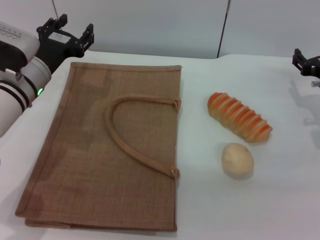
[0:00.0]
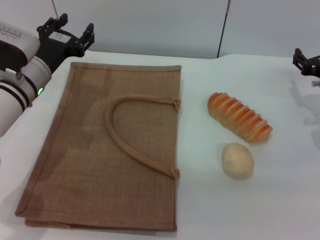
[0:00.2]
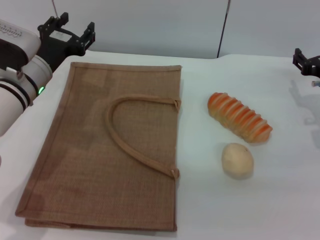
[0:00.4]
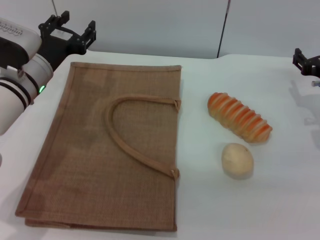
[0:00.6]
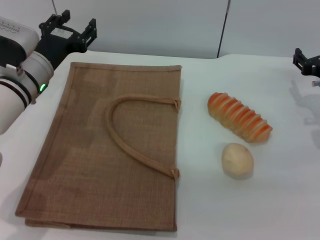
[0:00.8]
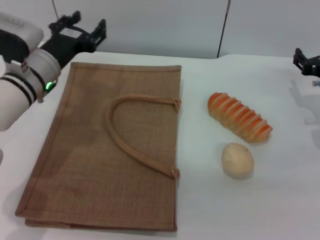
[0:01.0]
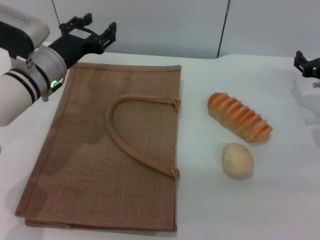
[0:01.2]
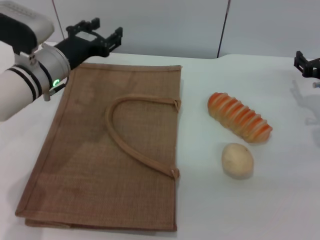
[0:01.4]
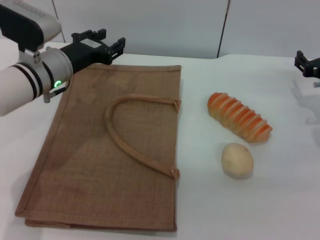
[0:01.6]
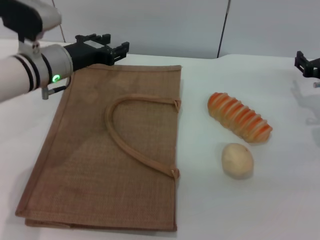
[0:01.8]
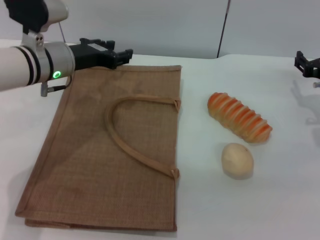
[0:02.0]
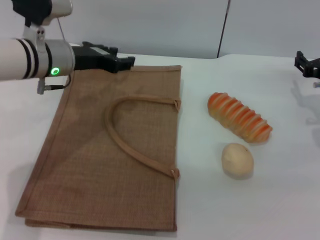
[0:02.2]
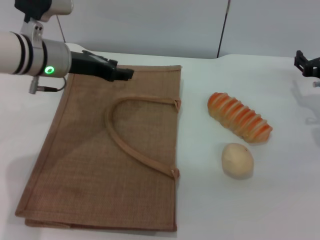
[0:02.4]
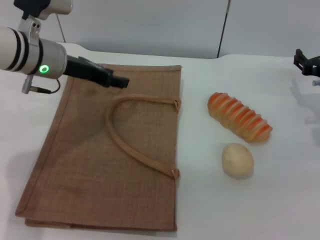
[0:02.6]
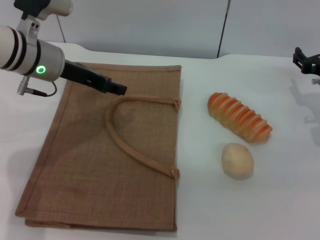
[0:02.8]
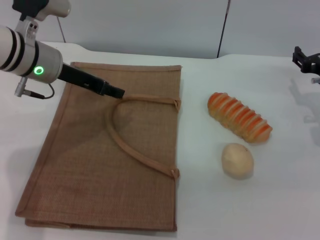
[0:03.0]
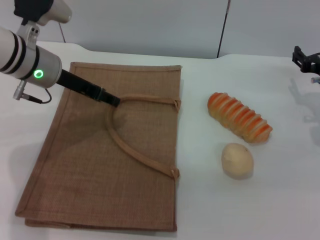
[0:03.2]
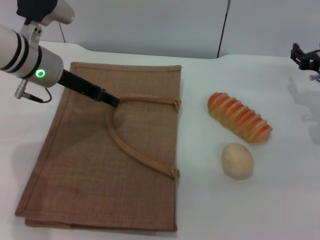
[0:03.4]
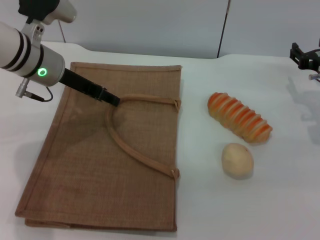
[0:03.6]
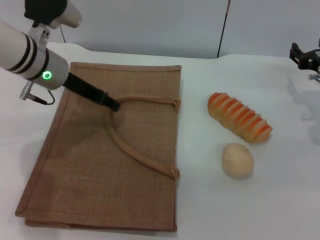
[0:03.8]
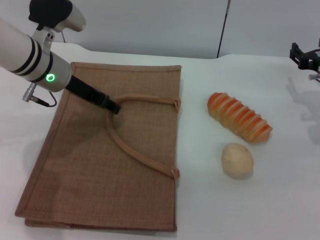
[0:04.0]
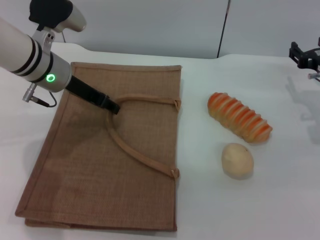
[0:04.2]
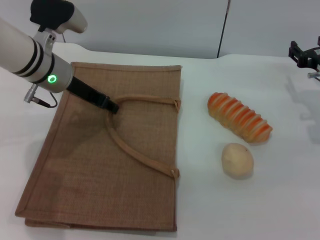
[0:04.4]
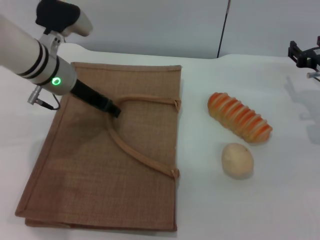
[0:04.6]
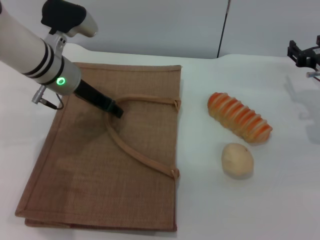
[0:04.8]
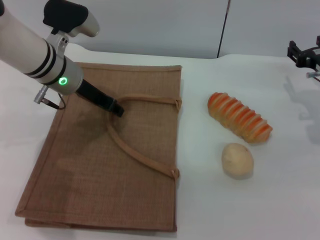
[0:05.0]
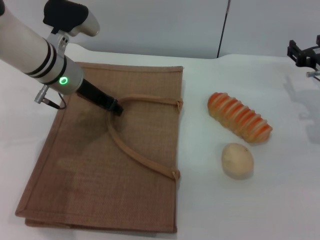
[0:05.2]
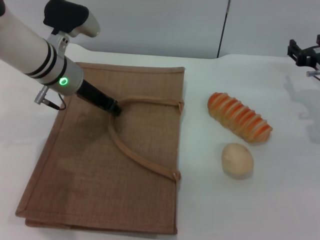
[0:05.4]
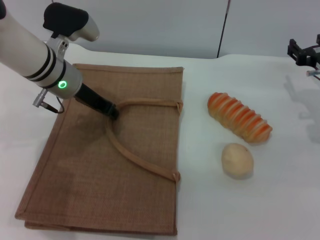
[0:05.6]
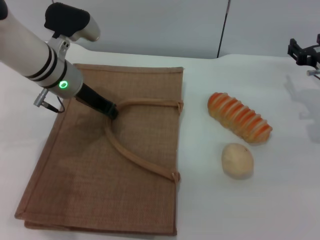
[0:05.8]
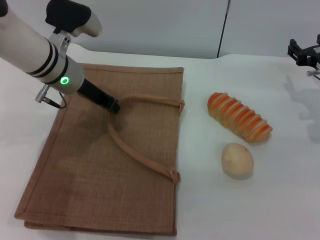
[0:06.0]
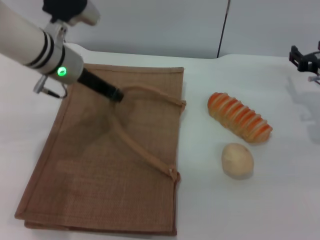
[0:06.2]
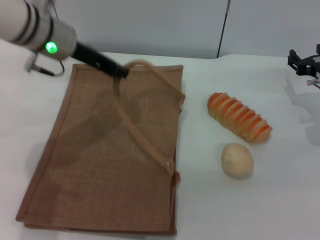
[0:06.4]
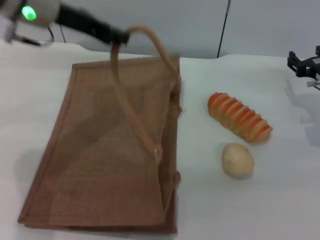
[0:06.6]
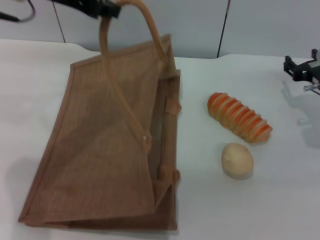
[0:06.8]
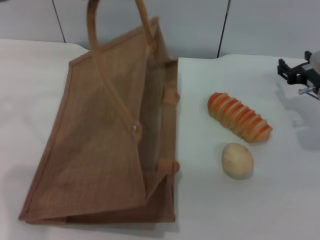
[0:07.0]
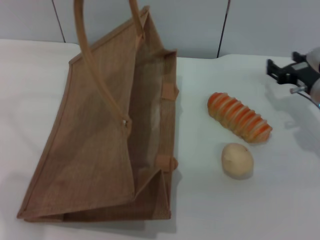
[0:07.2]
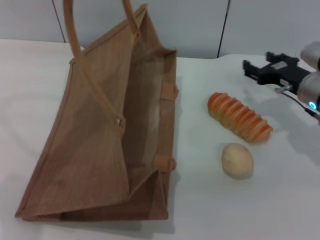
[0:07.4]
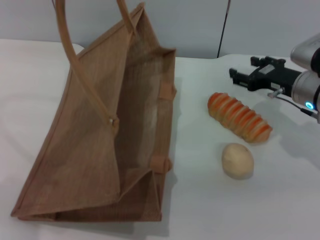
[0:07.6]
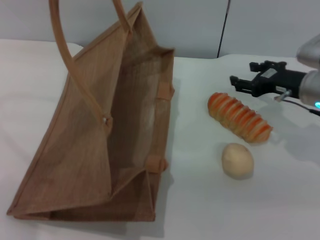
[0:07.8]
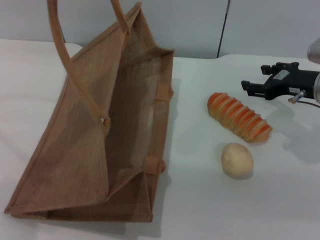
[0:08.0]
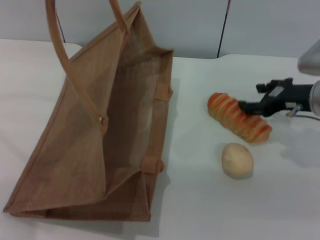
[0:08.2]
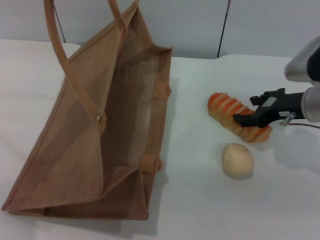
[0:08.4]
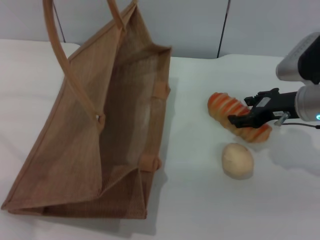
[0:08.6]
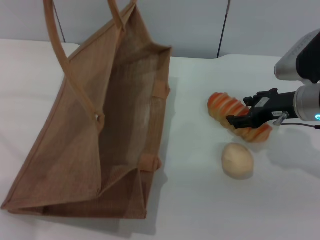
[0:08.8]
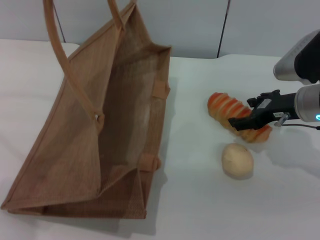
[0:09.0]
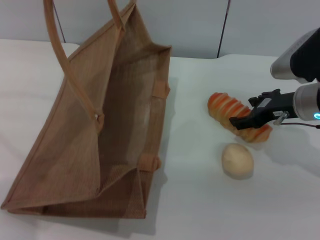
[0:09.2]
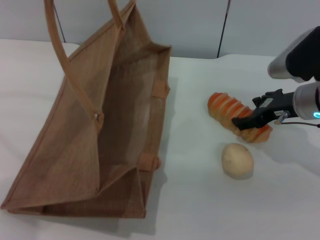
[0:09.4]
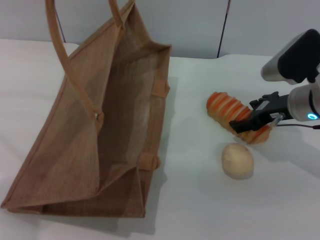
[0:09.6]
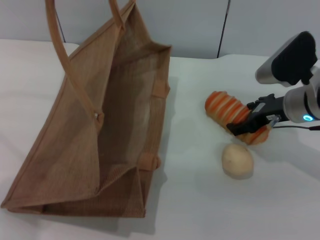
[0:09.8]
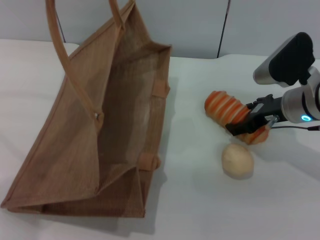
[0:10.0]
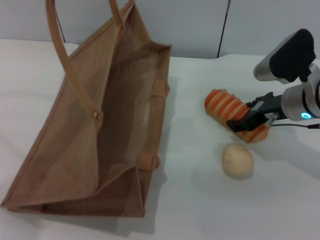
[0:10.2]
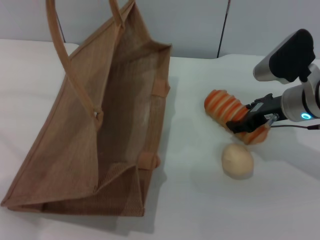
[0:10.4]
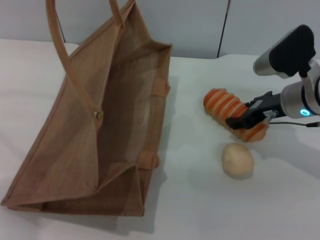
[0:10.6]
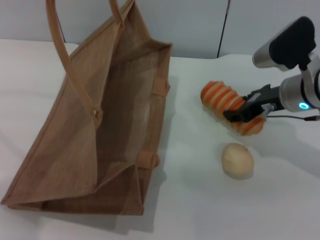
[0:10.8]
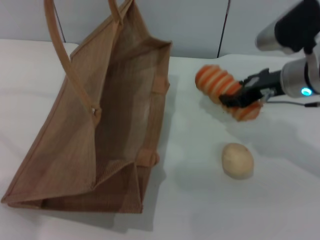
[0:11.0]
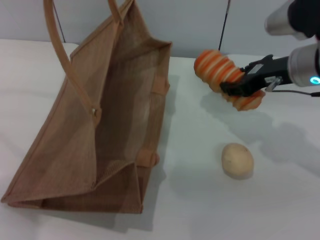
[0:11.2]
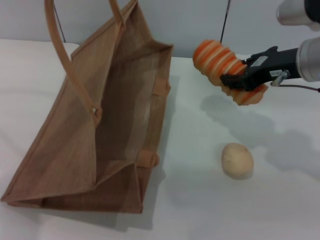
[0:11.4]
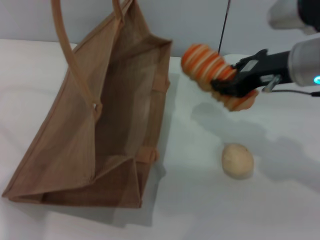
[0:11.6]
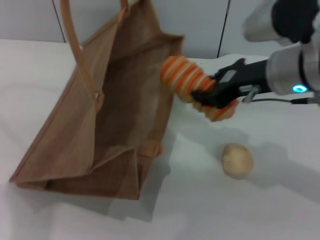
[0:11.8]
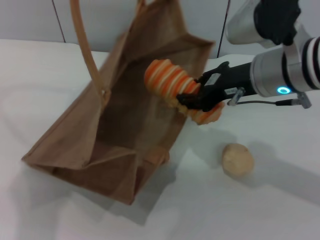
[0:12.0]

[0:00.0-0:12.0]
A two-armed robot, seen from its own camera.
Task of the whole recording: pick up the bread and egg yolk pastry from the table and place it in the brown handbag.
Step, 0:00.0 to 0:06.8: Lift the woven bag with the left gripper to open it.
Step, 0:07.0 to 0:11.2: Pick up the bread with the right gripper.
0:00.0 to 0:01.6: The grippers make only small movements.
0:01.6 to 0:03.0: The left gripper travels upward by approximately 5 cm.
0:03.0 to 0:04.4: The grippers move only a little.
0:04.4 to 0:06.0: The left gripper closes its fingers.
0:06.0 to 0:07.6: The left gripper travels upward by approximately 25 cm.
0:09.0 to 0:10.4: The grippers make only small movements.
0:10.4 to 0:12.0: The right gripper shifts some 10 cm upward and to the left, and closes up.

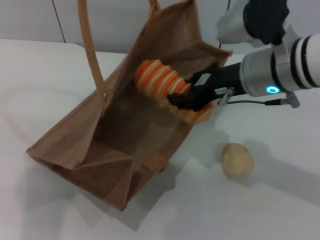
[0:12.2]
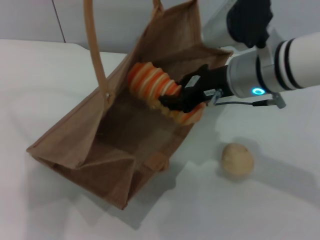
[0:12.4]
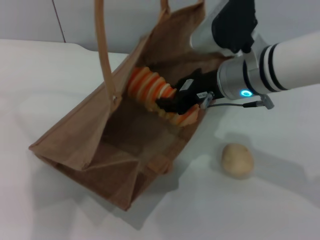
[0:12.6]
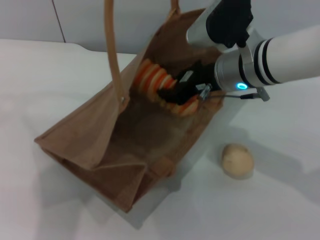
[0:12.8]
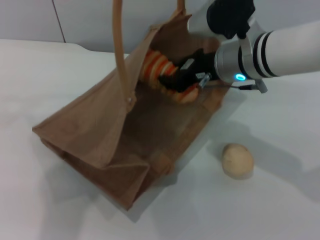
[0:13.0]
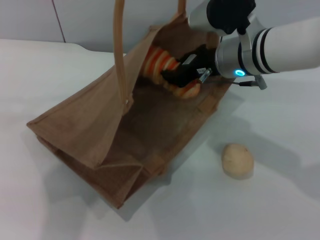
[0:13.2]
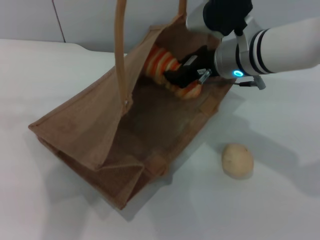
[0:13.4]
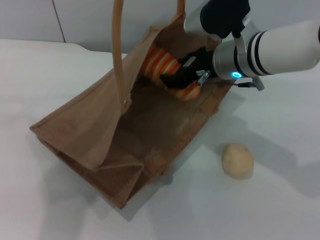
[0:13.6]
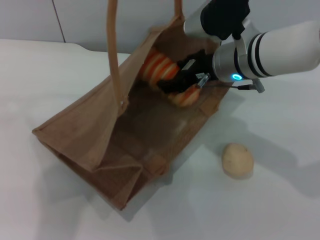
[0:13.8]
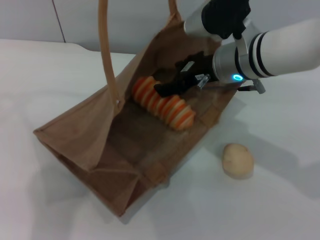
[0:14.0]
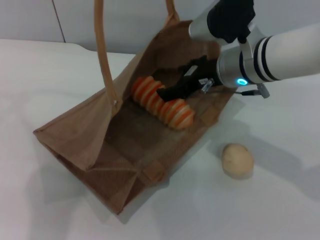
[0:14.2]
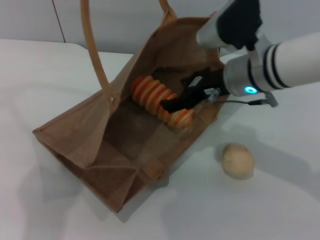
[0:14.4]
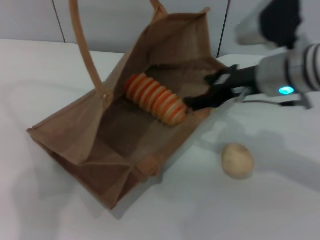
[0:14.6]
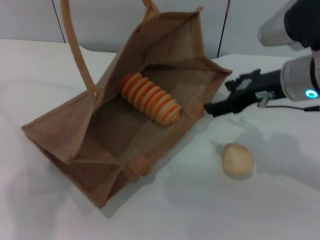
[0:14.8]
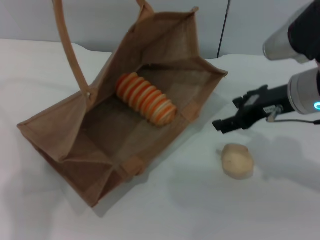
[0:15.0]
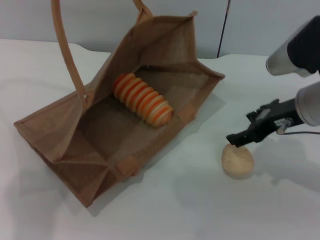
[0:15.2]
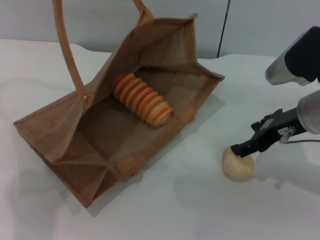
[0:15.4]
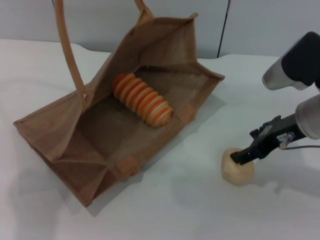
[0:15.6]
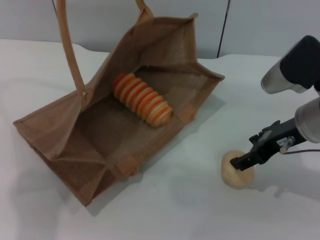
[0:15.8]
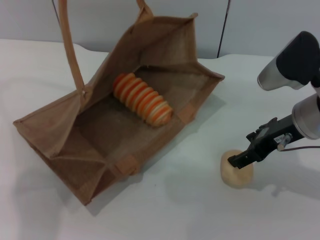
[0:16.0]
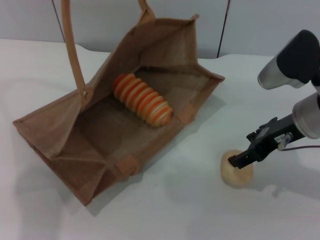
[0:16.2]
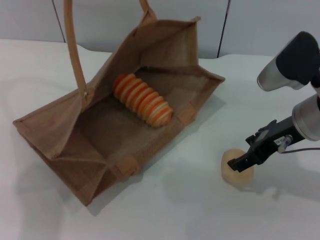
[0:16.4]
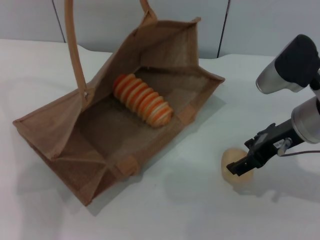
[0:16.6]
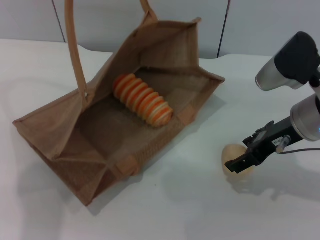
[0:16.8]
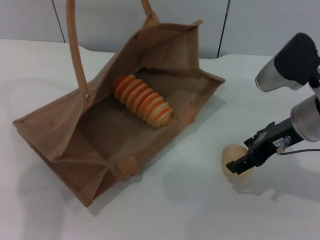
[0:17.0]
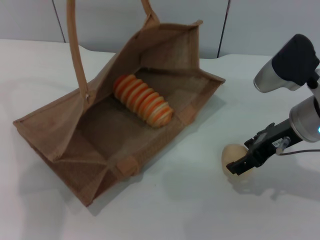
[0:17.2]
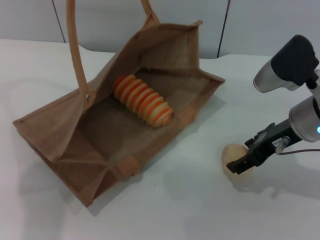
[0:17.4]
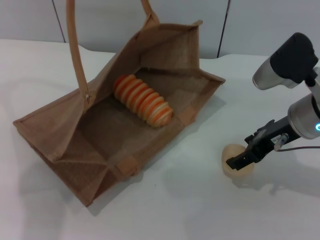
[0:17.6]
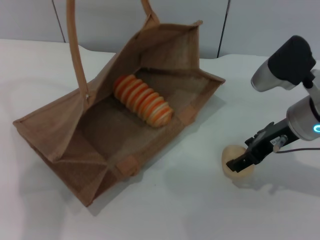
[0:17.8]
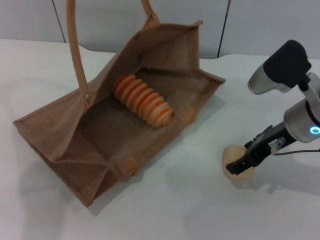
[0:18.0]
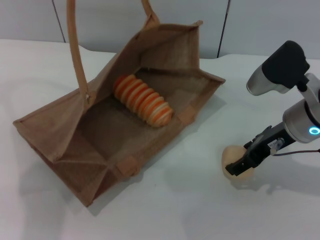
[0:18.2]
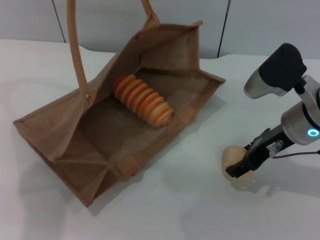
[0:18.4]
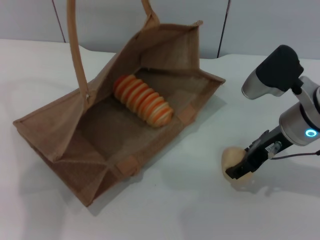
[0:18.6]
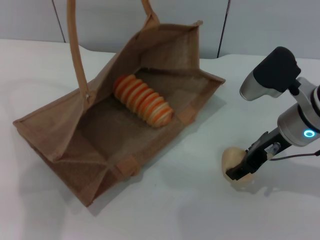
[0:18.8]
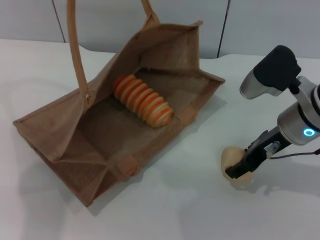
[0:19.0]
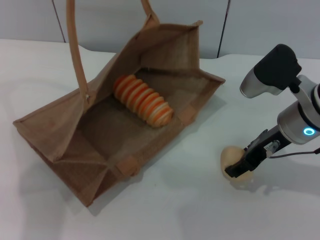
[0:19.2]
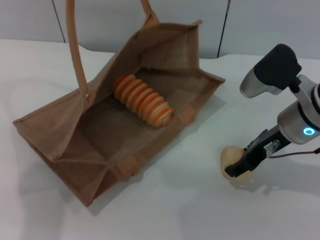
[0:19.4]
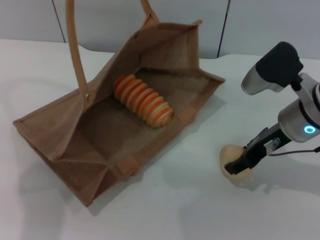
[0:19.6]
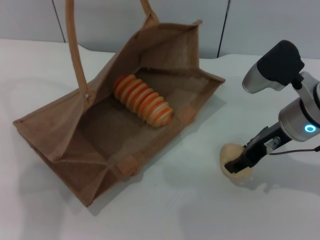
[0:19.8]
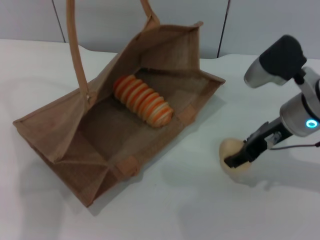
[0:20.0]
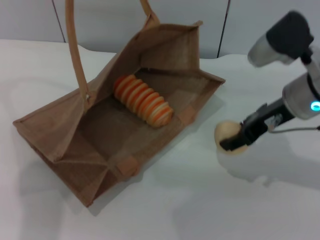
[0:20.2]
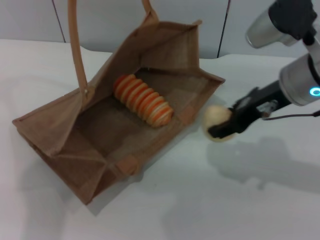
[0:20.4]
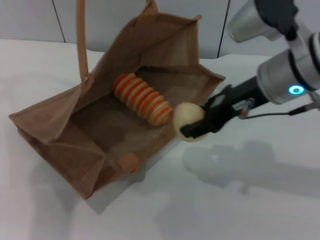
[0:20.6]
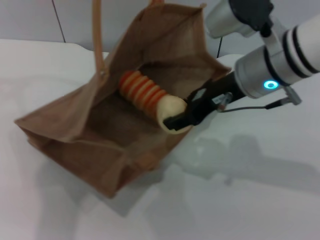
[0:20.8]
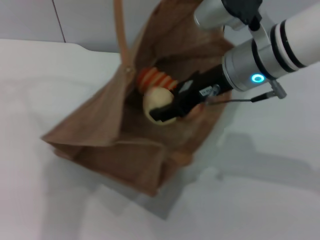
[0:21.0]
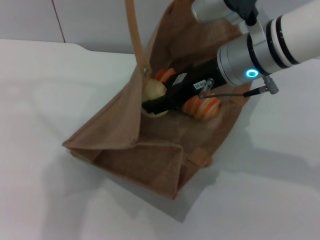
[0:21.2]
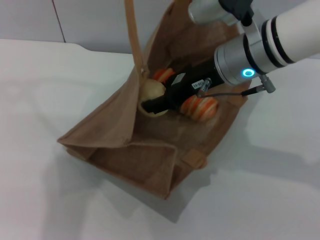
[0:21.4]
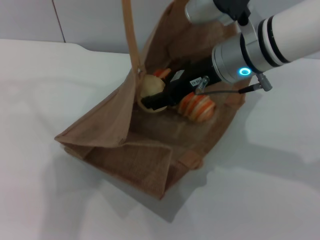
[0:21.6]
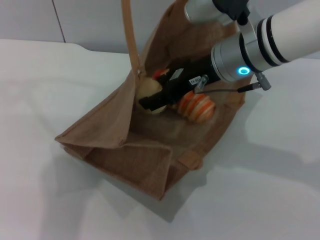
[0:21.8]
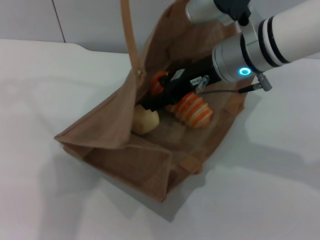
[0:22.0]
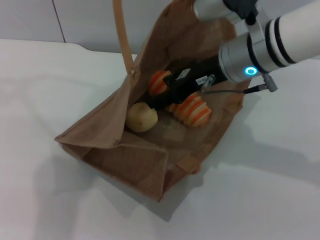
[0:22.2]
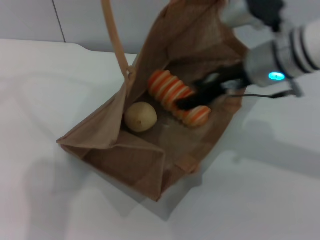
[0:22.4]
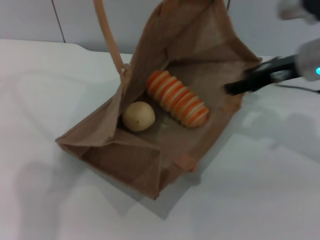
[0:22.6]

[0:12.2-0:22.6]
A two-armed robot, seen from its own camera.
Task of the whole recording: pick up the bread and egg yolk pastry from the table and place it in the brown handbag.
Step, 0:12.2 to 0:14.8: Place the bread into the woven bag with the right gripper.
Step, 0:15.0 to 0:20.2: Pick up the egg yolk pastry with the right gripper.
0:12.2 to 0:13.6: The right gripper goes approximately 5 cm forward.
0:13.6 to 0:15.2: The right gripper moves to the right and backward, roughly 10 cm, and opens. The left gripper heads to the left, covering about 5 cm.
0:15.2 to 0:18.2: The grippers stay close to where they were, moving slightly.
0:18.2 to 0:19.6: The right gripper closes its fingers.
0:19.6 to 0:21.2: The left gripper goes approximately 5 cm to the right, while the right gripper shifts roughly 10 cm to the left and upward.
0:21.2 to 0:22.6: The right gripper travels to the right by roughly 10 cm, and opens its fingers, while the left gripper moves some 5 cm.
